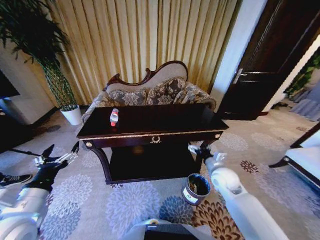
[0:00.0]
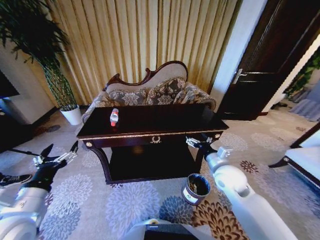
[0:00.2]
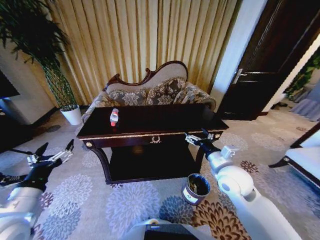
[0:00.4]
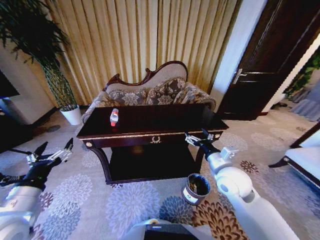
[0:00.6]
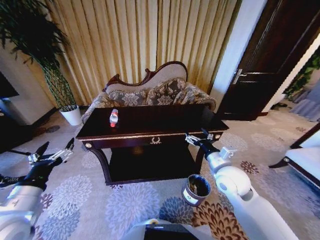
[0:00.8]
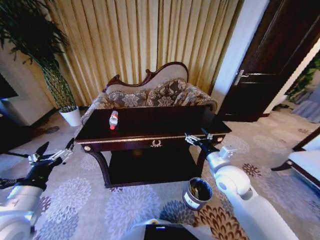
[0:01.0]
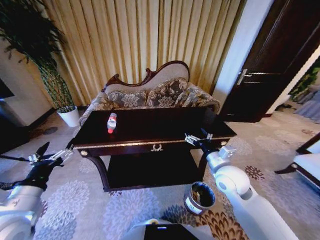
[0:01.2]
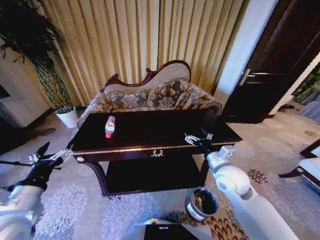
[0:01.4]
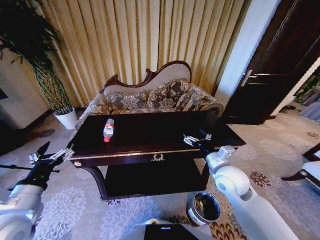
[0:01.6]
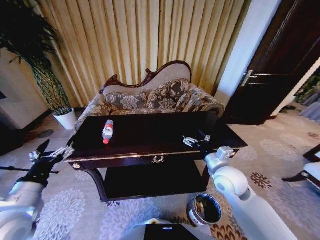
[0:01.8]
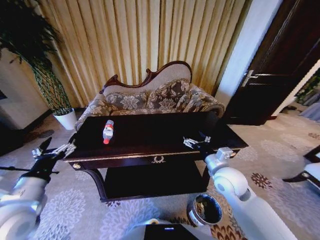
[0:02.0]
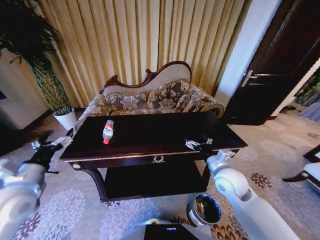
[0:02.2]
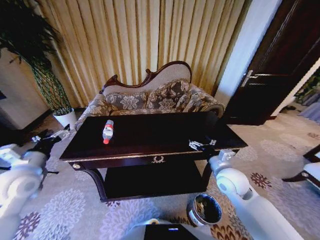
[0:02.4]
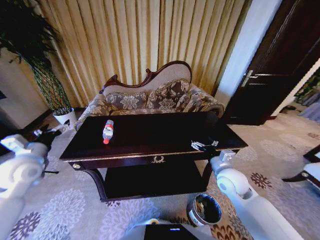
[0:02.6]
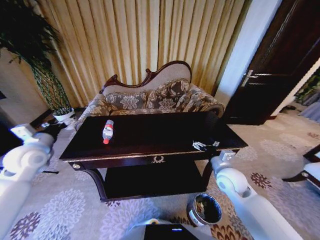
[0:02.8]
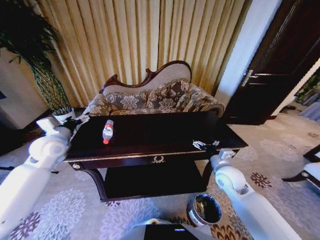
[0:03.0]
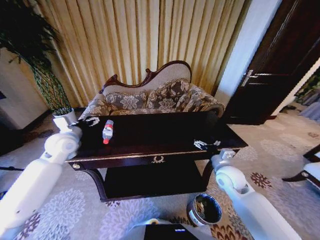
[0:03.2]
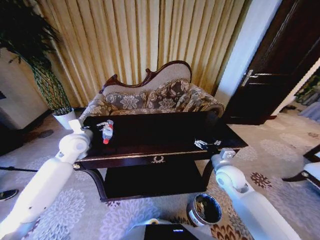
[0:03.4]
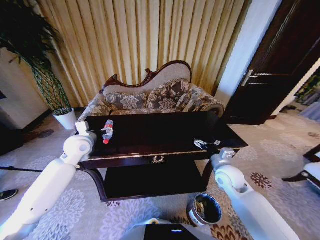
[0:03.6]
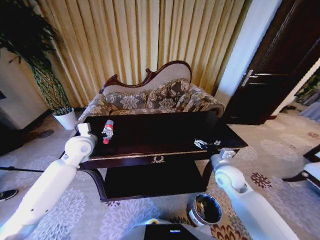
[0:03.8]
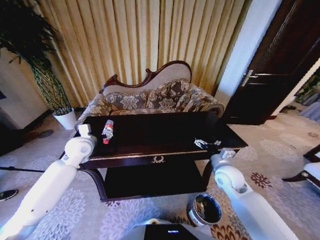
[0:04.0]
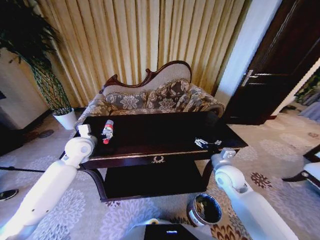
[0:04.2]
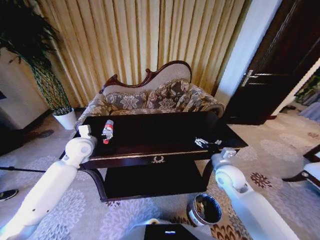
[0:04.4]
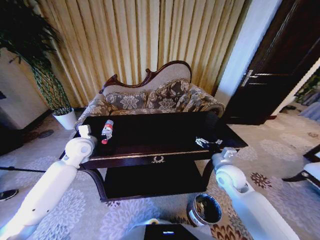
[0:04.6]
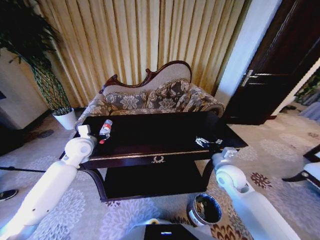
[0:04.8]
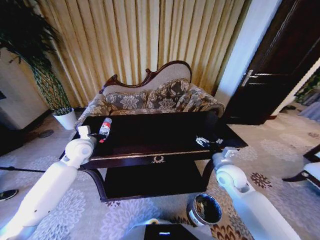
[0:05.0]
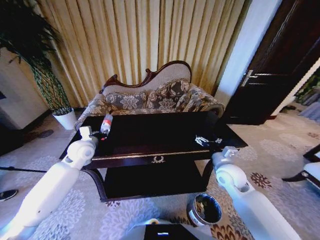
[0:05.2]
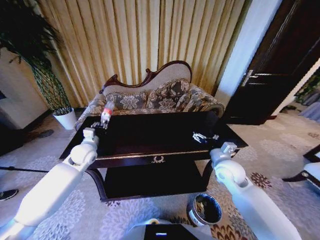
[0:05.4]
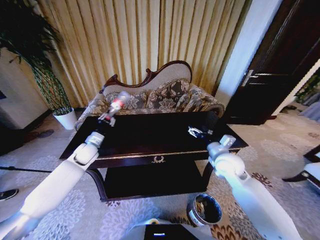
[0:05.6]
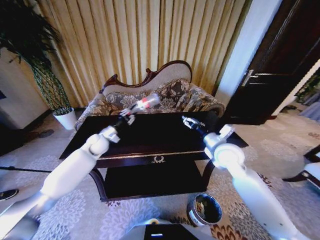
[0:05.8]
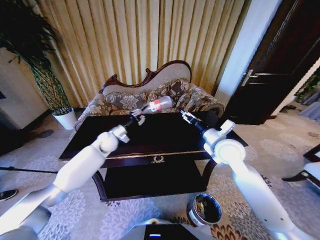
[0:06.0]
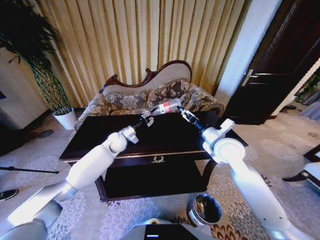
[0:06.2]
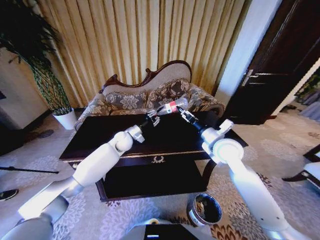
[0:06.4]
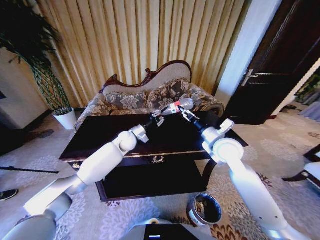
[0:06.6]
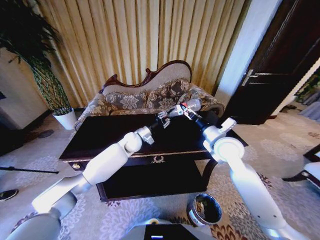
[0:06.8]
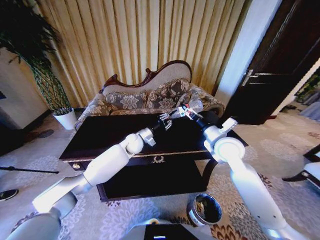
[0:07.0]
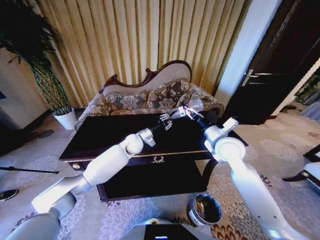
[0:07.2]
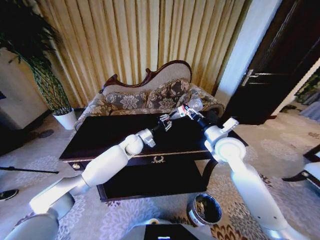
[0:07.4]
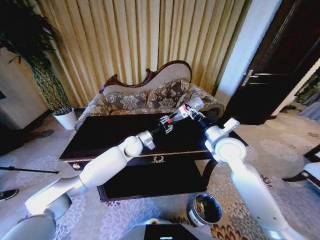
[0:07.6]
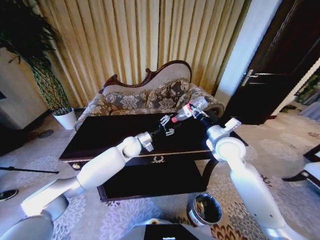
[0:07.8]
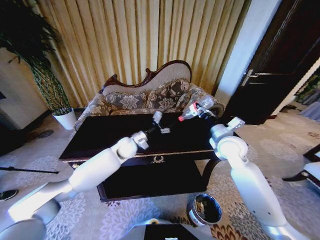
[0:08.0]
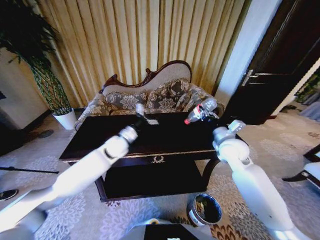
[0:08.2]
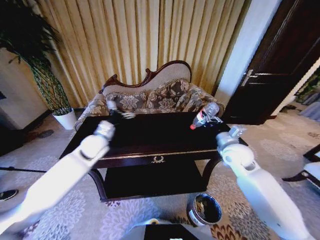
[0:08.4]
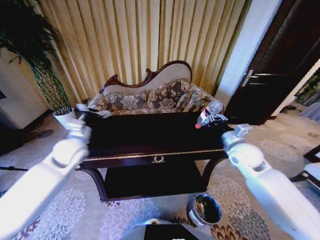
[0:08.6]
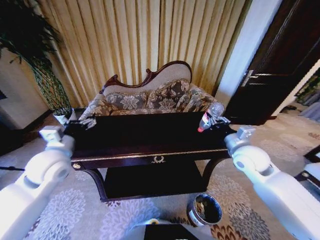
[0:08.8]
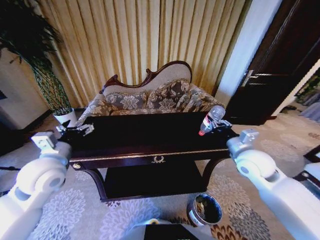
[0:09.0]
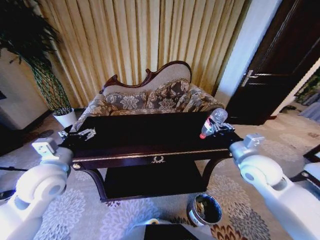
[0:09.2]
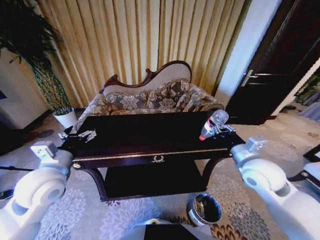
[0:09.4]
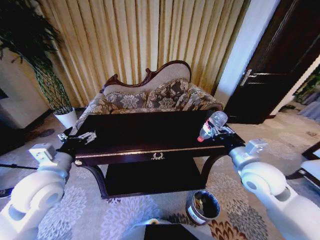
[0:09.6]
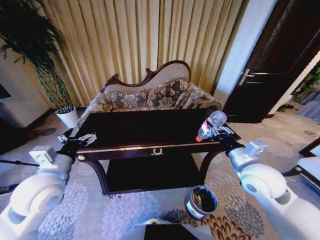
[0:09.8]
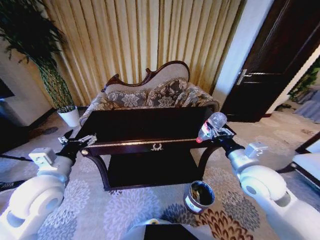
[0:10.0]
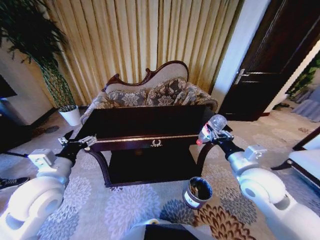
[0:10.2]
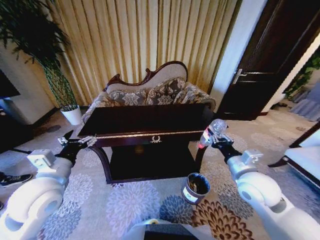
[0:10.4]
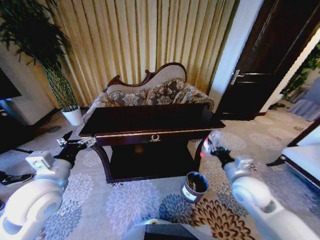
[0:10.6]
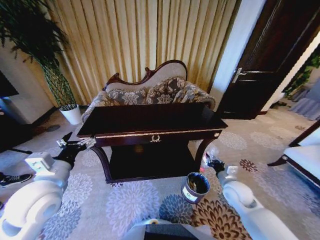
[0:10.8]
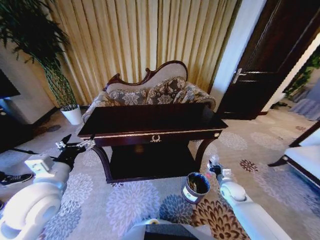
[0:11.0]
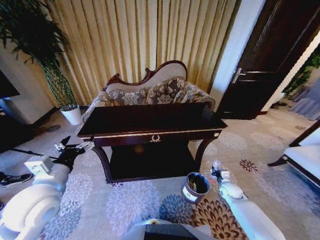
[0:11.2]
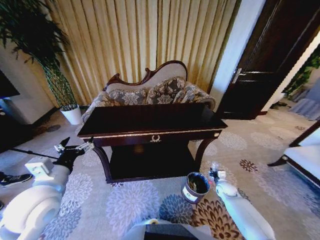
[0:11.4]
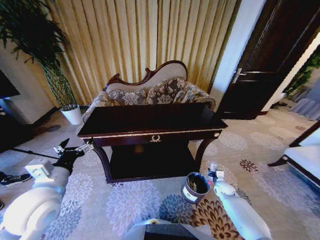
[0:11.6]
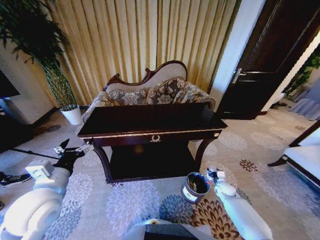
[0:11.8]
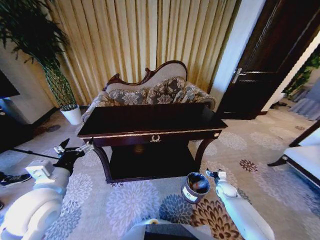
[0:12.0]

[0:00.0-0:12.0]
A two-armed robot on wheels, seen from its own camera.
Task of the whole recording: Move to the front of the table and place the trash on the table into the trash bin.
0:00.0 to 0:01.6: The right gripper moves upward, approximately 10 cm.
0:01.6 to 0:03.0: The left gripper is displaced forward by some 25 cm. Meanwhile the right gripper is displaced downward by some 5 cm.
0:03.0 to 0:04.4: The left gripper goes approximately 10 cm to the right.
0:04.4 to 0:06.0: The left gripper moves forward, to the right and downward, some 15 cm, and closes; the right gripper moves upward and forward, about 10 cm.
0:06.0 to 0:07.6: The right gripper closes, while the left gripper shifts about 10 cm to the right.
0:07.6 to 0:09.0: The left gripper travels to the left, backward and upward by some 30 cm, and opens, while the right gripper shifts some 10 cm to the right and backward.
0:09.0 to 0:10.4: Both grippers move backward, approximately 5 cm.
0:10.4 to 0:12.0: The right gripper heads downward, covering approximately 30 cm, and opens up.

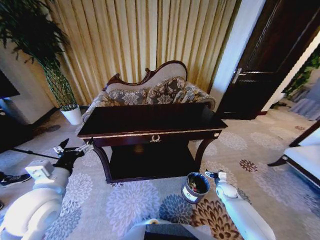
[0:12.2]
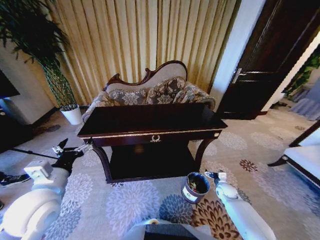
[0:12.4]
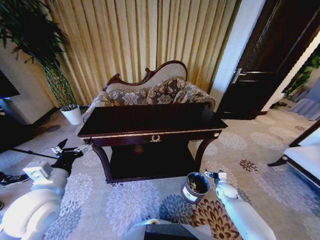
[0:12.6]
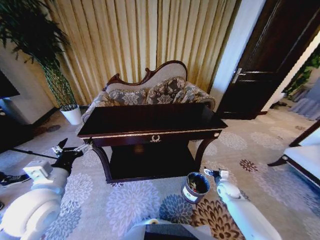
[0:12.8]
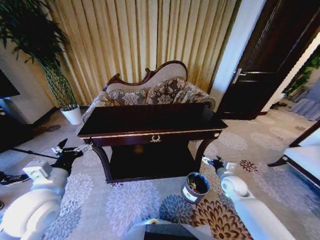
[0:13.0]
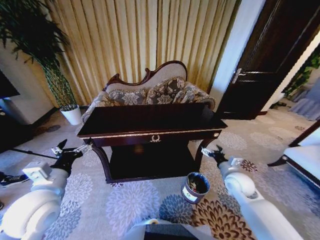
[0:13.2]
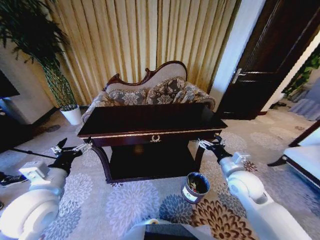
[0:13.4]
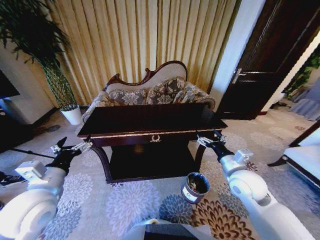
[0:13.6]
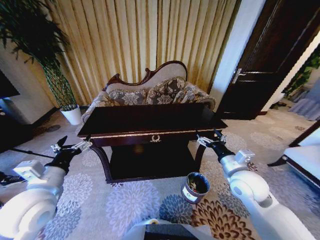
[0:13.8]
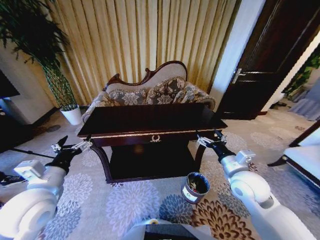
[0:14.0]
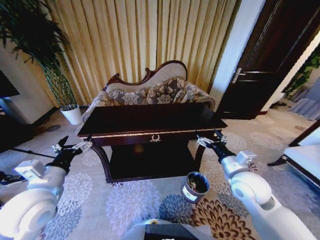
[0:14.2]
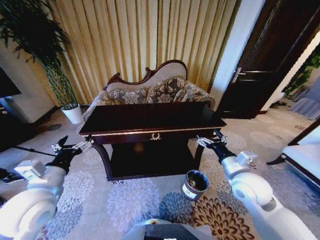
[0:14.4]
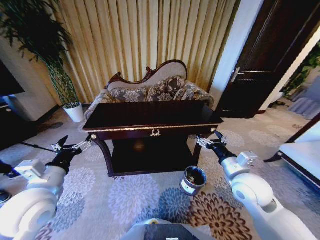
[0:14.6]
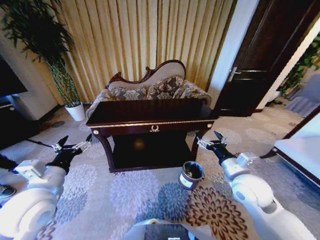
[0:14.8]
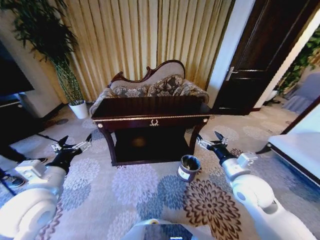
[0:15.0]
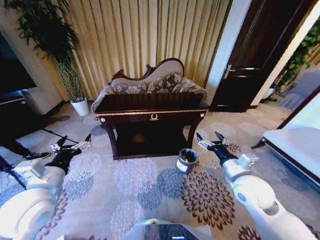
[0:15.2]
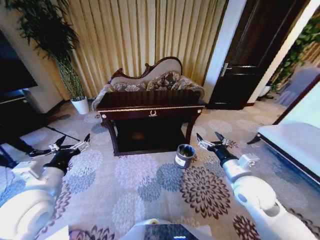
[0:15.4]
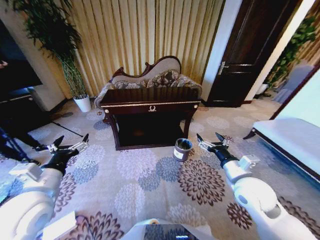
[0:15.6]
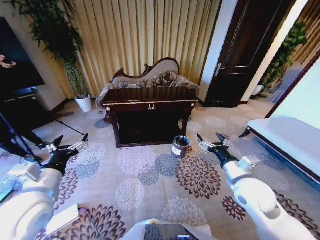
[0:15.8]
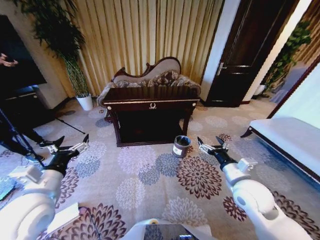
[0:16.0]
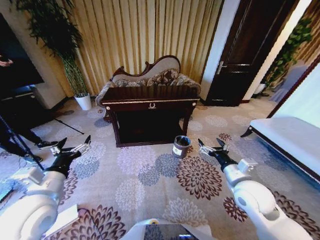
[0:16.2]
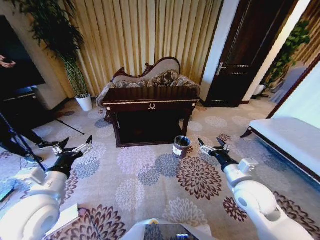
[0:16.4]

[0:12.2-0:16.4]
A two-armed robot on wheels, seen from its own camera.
Task of the whole recording: Move to the front of the table and place the trash on the table into the trash bin.
0:12.2 to 0:13.6: The right gripper moves upward, roughly 30 cm.

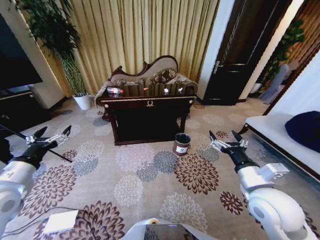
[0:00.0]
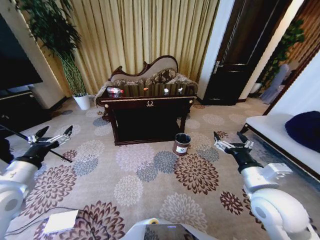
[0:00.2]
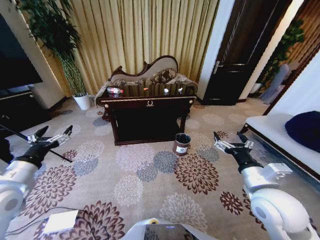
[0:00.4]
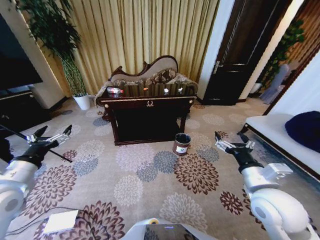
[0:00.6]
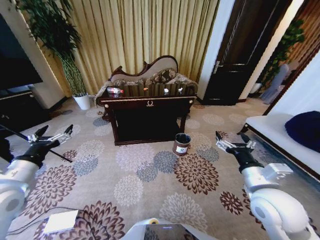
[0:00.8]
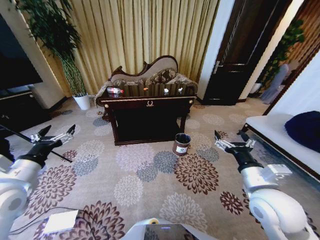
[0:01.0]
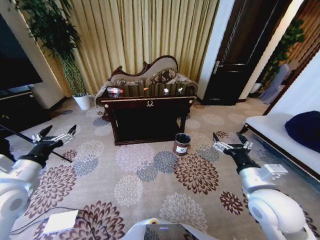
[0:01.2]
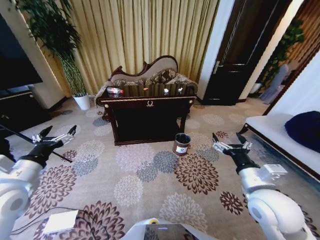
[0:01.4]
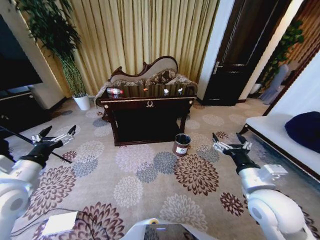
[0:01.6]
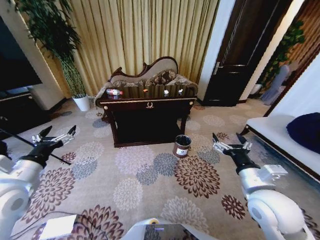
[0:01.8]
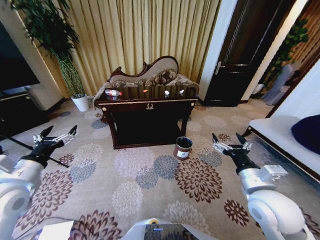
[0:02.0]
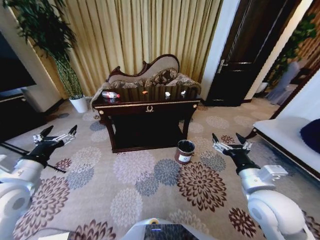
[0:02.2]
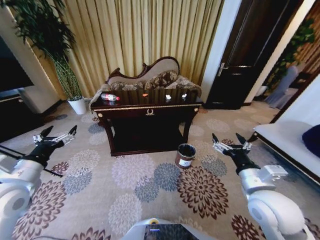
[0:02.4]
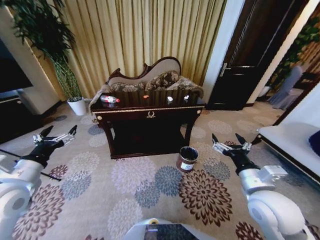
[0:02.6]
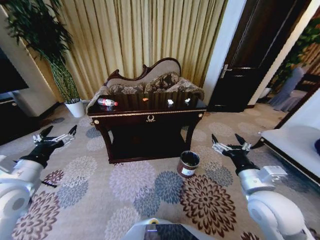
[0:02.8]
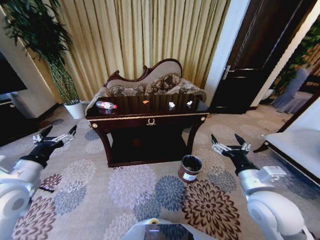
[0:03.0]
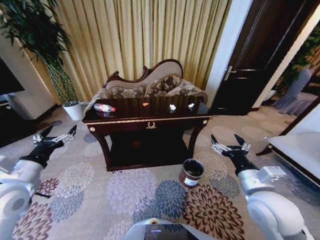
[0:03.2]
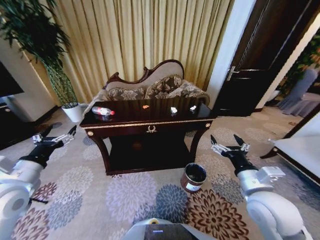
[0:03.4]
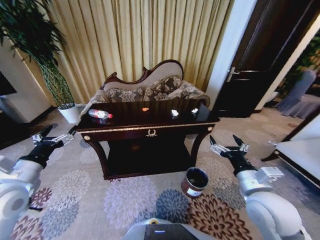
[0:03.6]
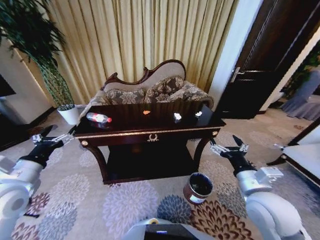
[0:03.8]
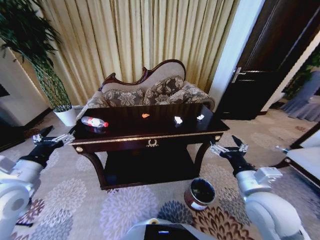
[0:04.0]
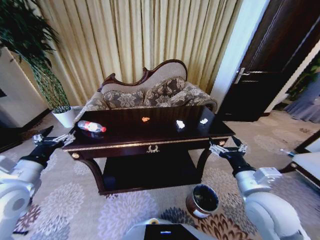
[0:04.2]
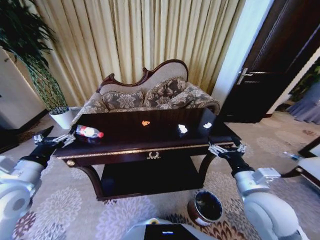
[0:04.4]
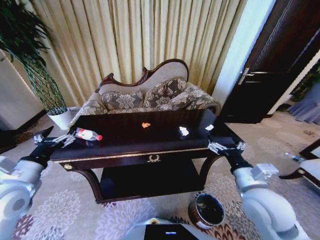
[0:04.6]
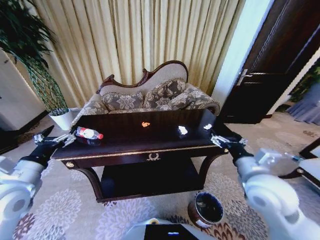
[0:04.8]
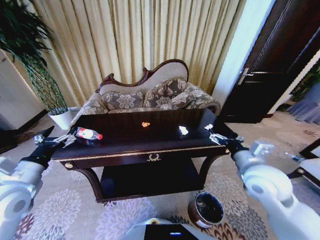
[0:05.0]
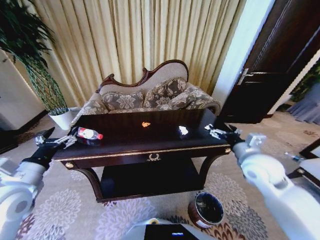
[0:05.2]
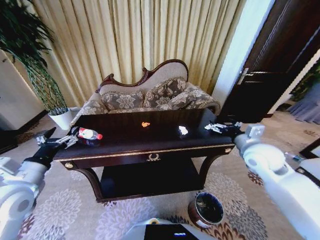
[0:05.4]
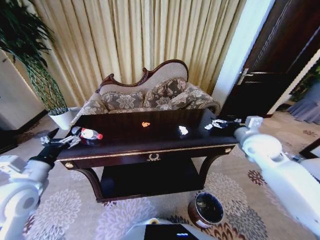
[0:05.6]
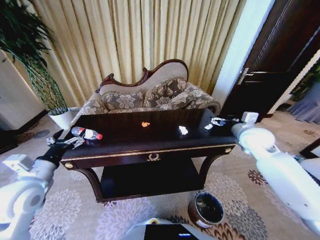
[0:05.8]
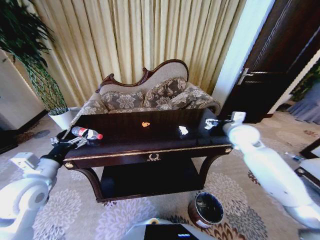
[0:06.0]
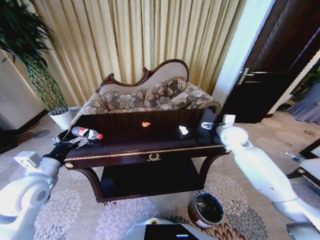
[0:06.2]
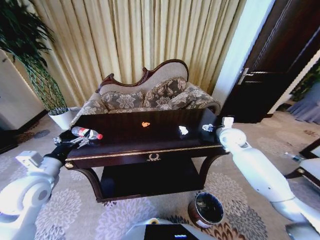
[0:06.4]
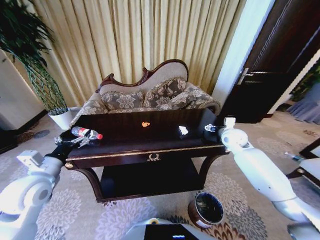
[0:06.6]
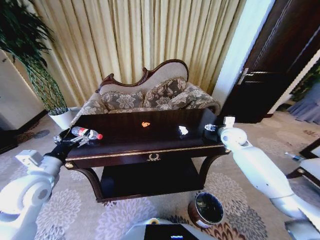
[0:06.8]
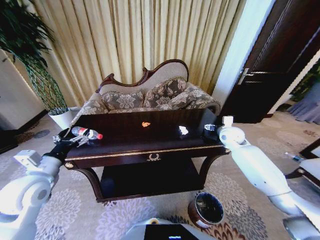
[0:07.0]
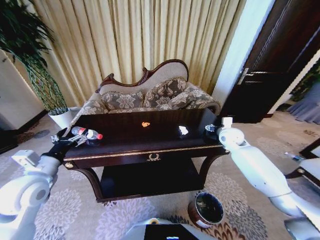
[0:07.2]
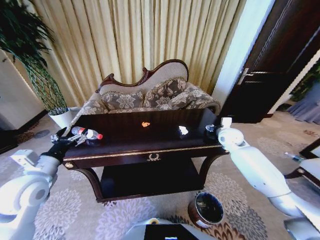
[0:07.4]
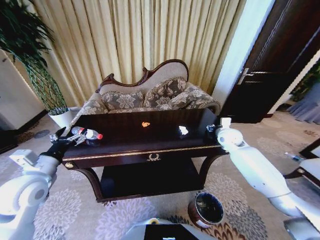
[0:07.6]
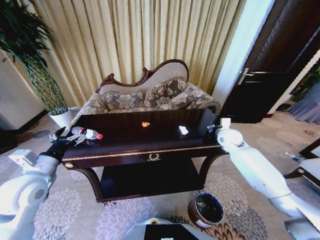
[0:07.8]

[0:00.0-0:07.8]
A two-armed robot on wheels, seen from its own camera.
Task of the whole recording: Move to the front of the table and place the trash on the table into the trash bin.
0:04.6 to 0:06.2: The right gripper is displaced forward by approximately 25 cm.
0:06.2 to 0:07.8: The right gripper closes up.
